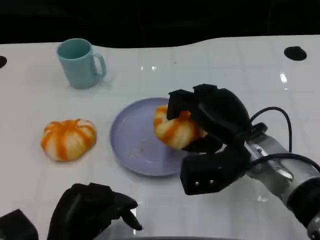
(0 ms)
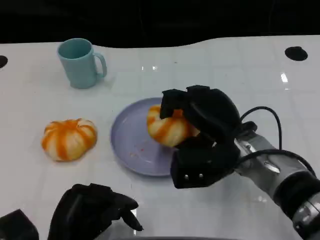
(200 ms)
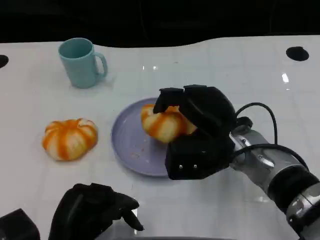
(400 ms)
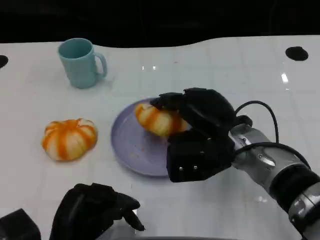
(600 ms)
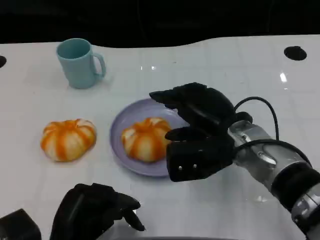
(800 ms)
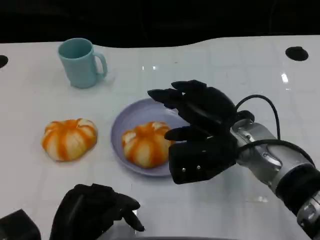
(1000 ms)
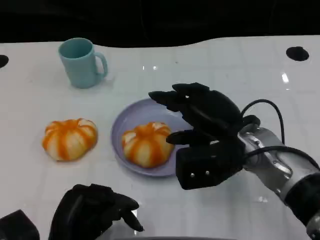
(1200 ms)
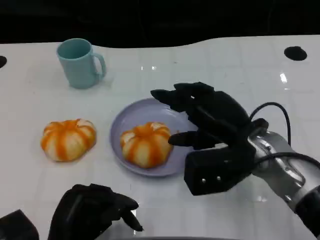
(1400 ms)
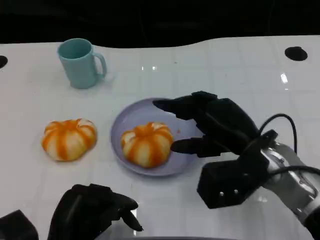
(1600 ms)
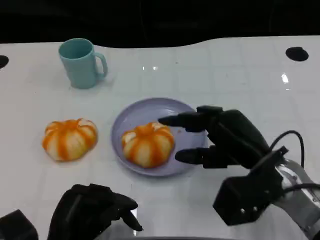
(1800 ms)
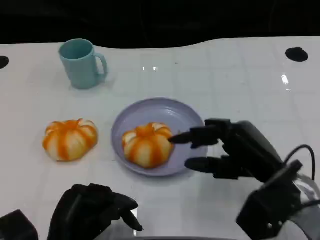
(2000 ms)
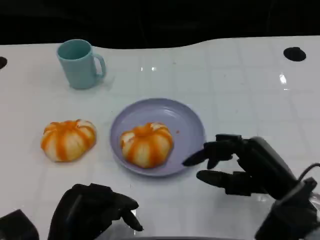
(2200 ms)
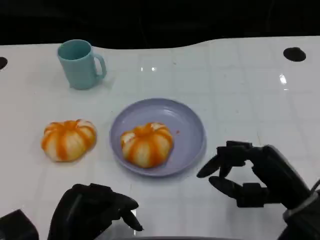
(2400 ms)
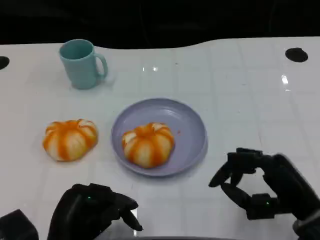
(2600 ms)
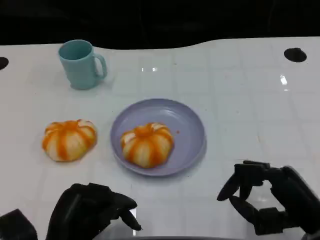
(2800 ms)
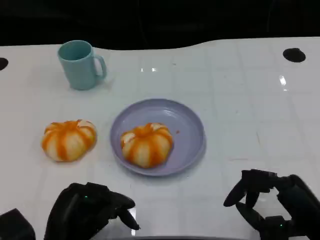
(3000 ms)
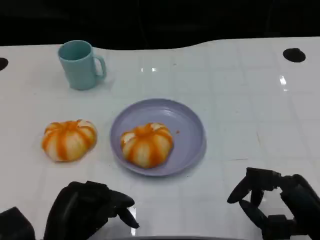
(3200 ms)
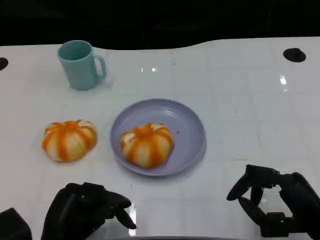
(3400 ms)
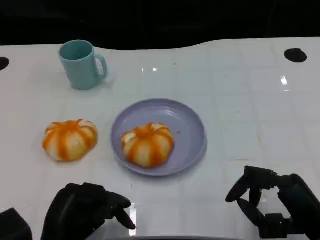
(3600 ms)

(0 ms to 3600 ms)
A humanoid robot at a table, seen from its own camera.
Task of the whole recording: Grasp the bread from the table and place it into the plate.
0 ms - 1800 ms: The right hand changes place by roughly 5 cm.
1800 ms - 3600 ms: The right hand moves backward and to the right, about 10 cm.

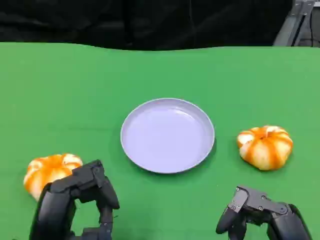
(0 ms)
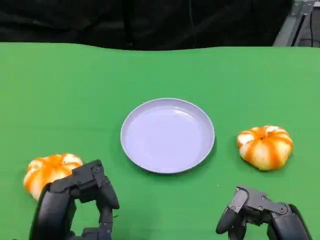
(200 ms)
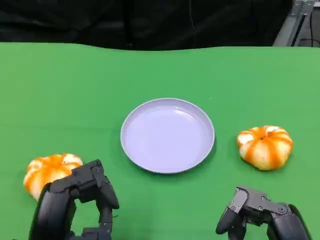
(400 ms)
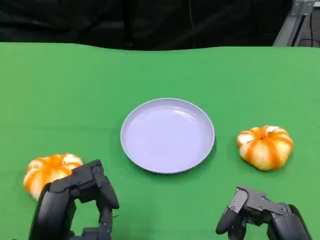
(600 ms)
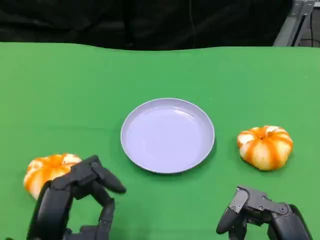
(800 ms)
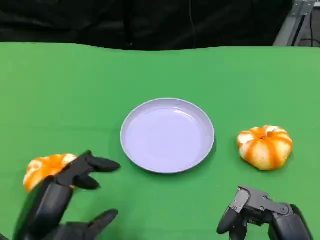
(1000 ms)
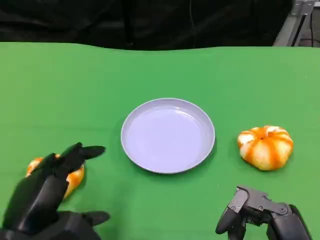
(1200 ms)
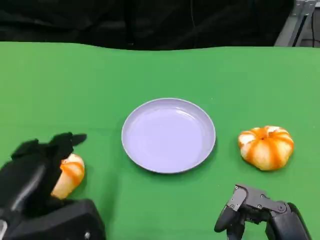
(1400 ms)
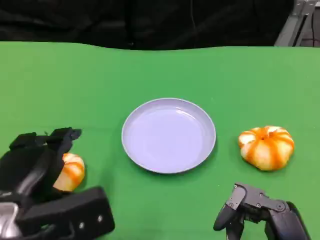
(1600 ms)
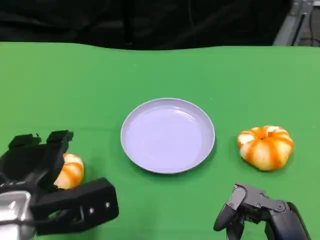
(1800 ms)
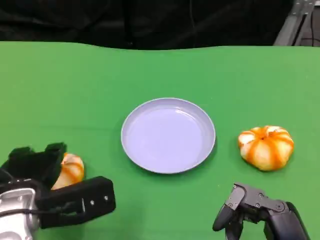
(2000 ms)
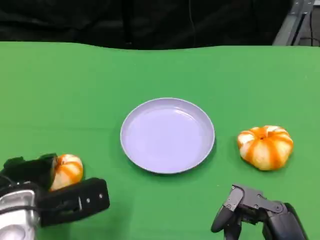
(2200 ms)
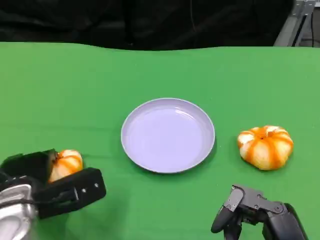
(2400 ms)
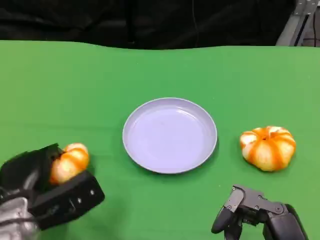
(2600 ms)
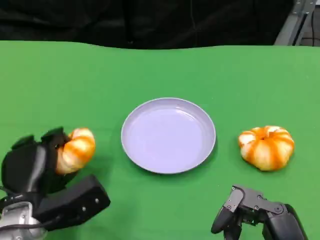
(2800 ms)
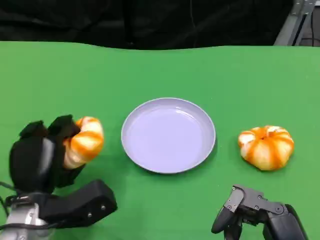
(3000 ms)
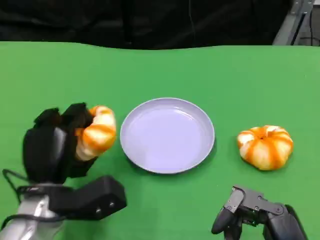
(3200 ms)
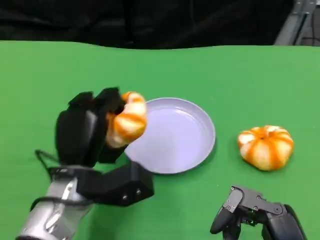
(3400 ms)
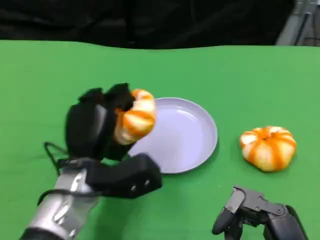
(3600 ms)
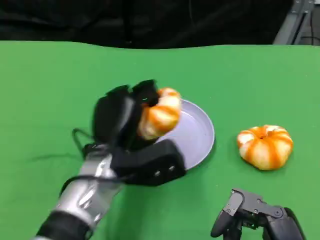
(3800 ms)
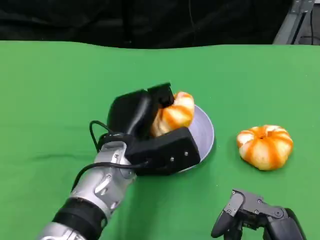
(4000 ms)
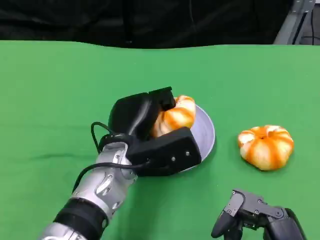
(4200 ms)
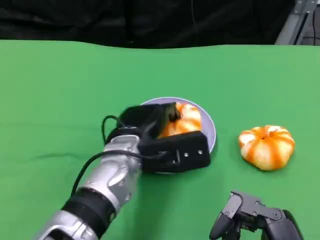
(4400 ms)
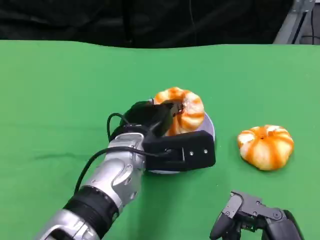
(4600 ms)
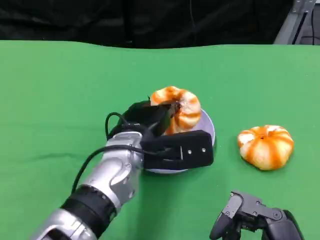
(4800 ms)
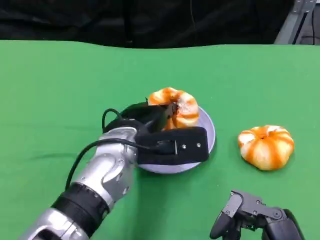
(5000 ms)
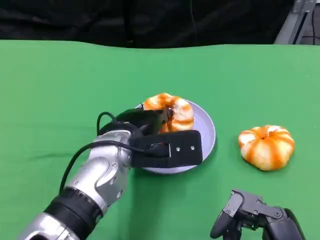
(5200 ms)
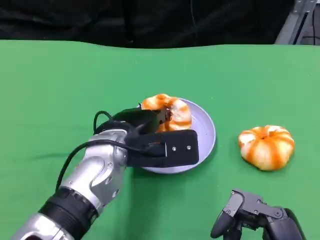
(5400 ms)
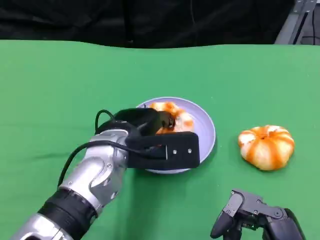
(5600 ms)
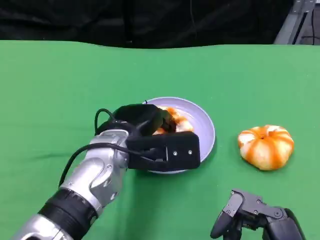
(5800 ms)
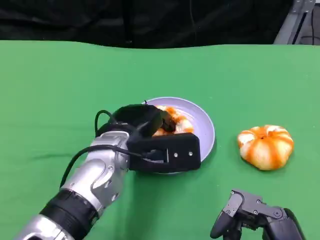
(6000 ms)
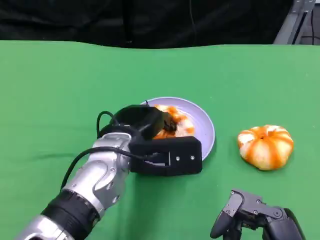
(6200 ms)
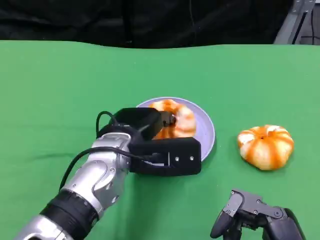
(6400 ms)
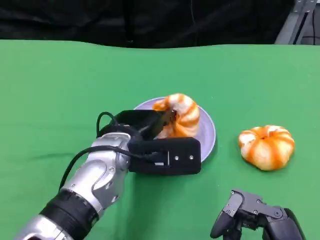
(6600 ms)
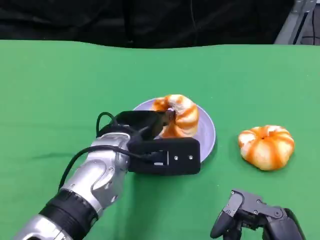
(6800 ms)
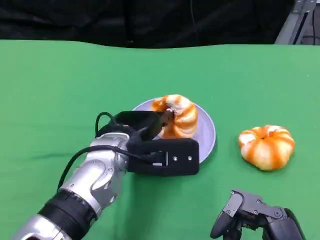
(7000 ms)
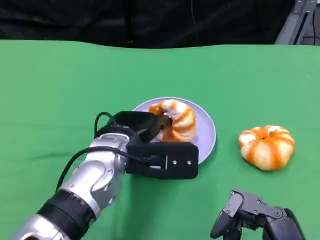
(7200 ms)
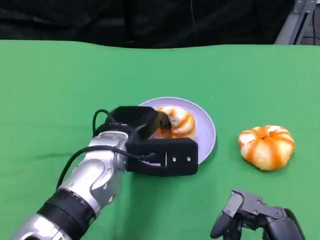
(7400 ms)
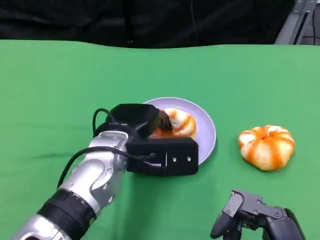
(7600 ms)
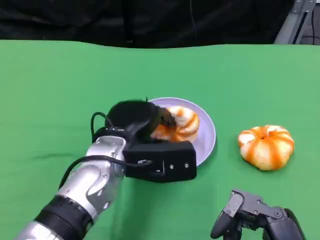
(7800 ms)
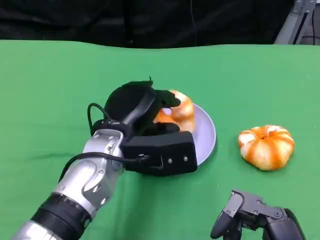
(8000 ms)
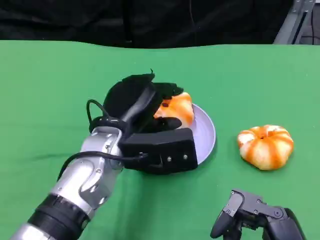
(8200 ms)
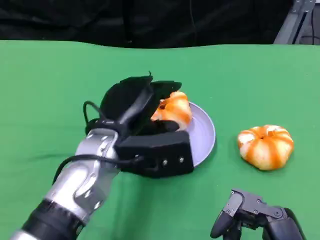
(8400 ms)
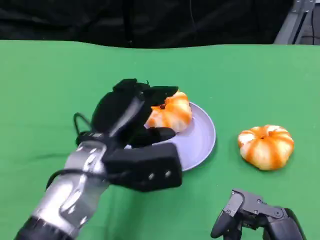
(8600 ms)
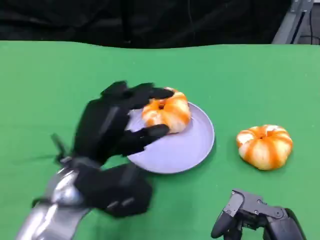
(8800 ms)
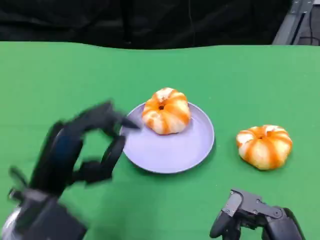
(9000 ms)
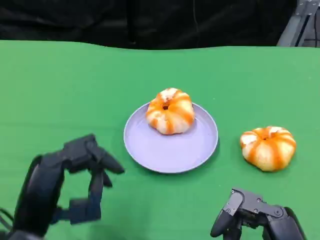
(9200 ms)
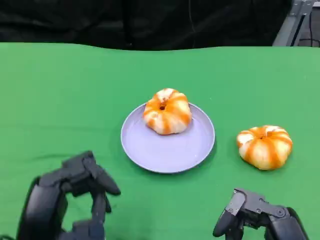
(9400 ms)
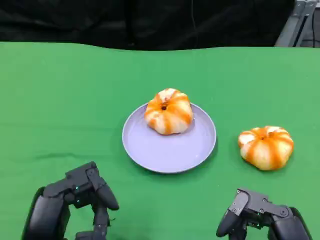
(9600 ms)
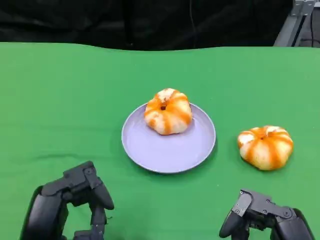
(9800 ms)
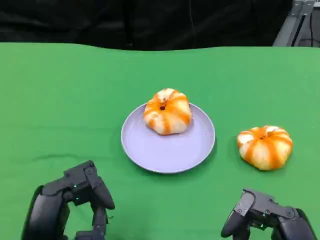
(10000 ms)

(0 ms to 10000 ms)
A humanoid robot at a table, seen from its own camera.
Task of the whole recording: Grasp the bread from the table and place it into the plate.
0 ms - 1400 ms: The left hand moves some 5 cm.
1400 ms - 2800 ms: The left hand is displaced downward and forward by approximately 10 cm.
2800 ms - 4200 ms: The left hand travels to the right, forward and upward by approximately 15 cm.
5800 ms - 7200 ms: There are only small adjustments of the hands.
8600 ms - 10000 ms: The left hand travels backward and to the left by roughly 15 cm.

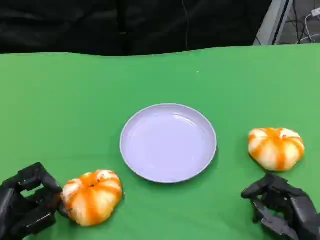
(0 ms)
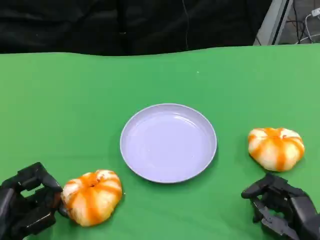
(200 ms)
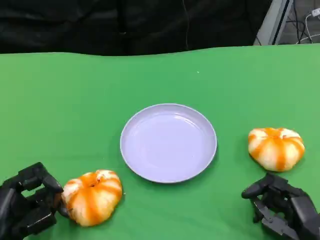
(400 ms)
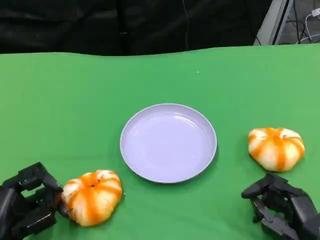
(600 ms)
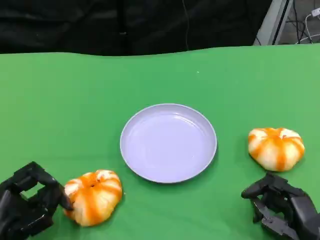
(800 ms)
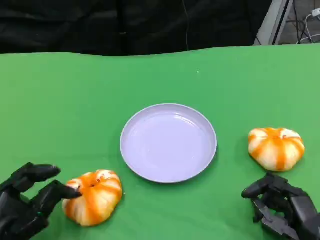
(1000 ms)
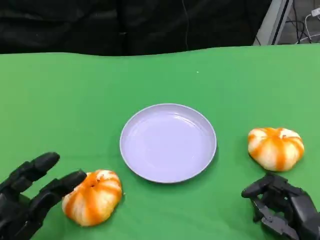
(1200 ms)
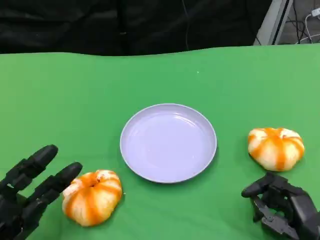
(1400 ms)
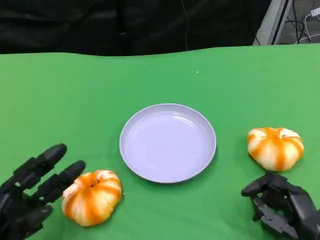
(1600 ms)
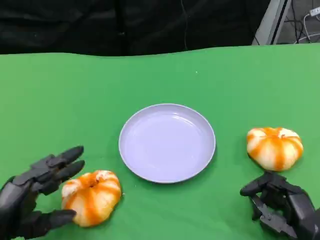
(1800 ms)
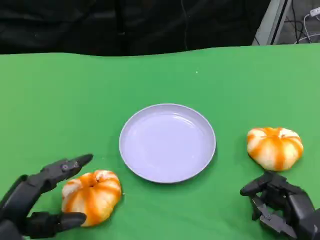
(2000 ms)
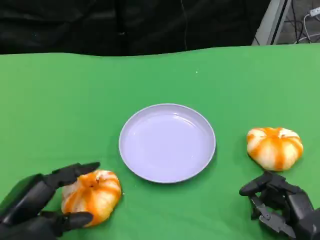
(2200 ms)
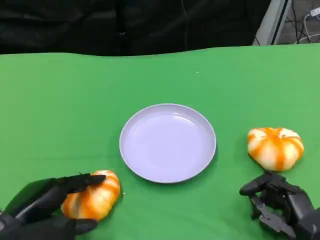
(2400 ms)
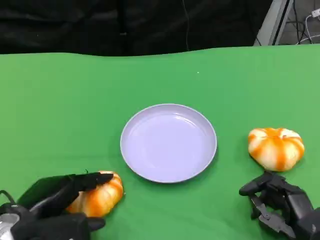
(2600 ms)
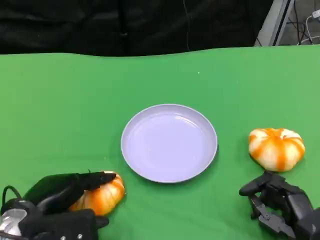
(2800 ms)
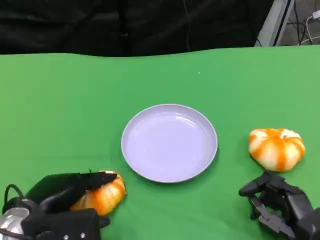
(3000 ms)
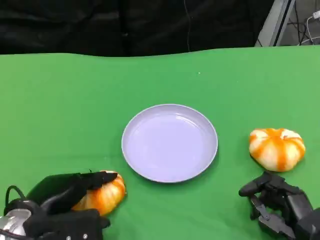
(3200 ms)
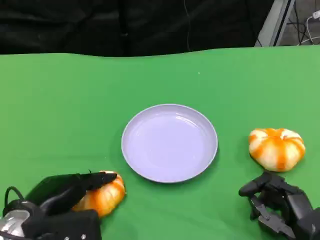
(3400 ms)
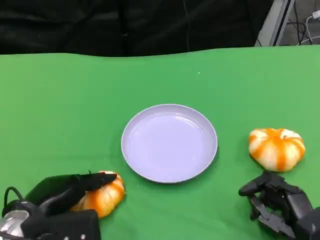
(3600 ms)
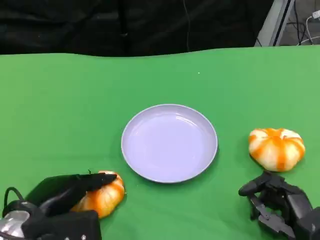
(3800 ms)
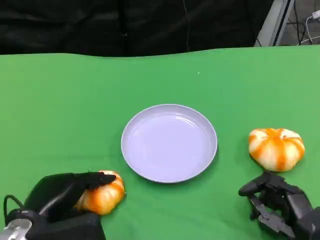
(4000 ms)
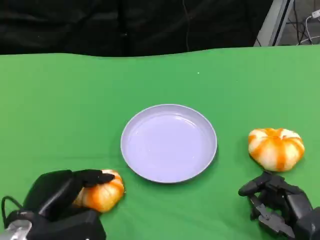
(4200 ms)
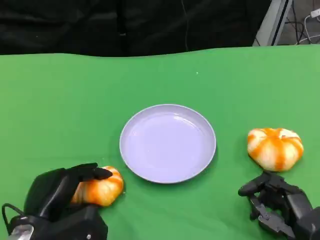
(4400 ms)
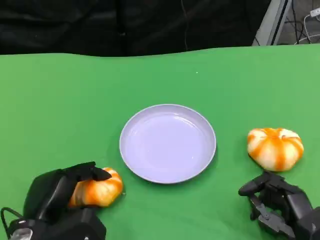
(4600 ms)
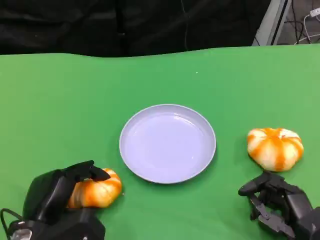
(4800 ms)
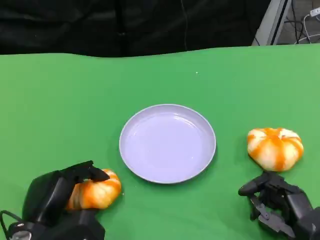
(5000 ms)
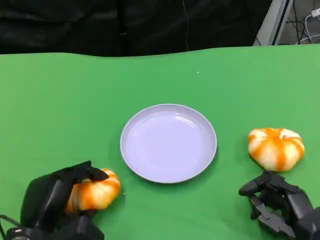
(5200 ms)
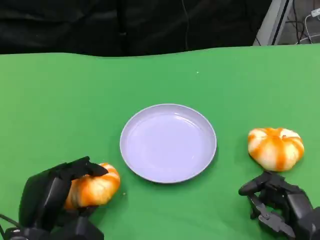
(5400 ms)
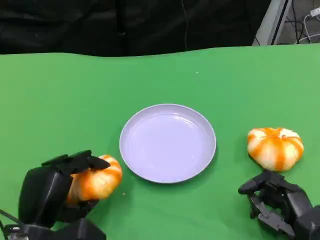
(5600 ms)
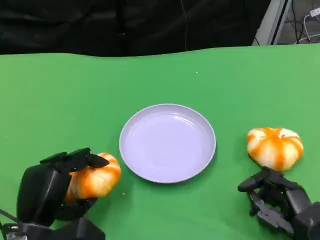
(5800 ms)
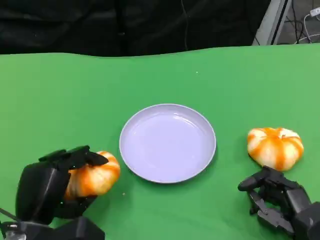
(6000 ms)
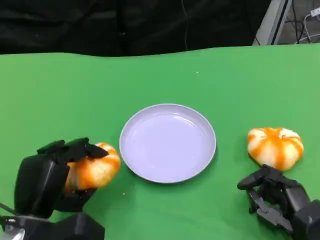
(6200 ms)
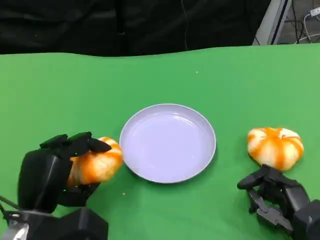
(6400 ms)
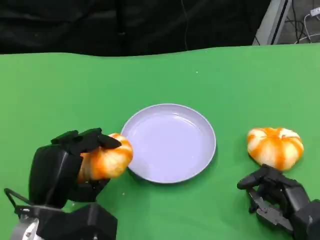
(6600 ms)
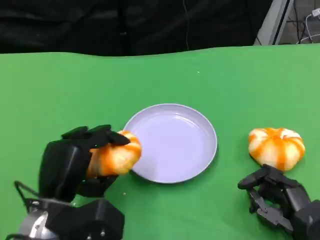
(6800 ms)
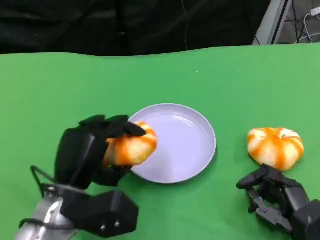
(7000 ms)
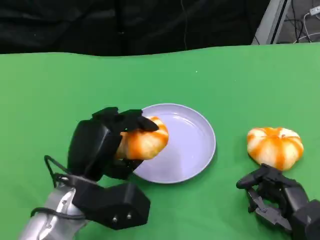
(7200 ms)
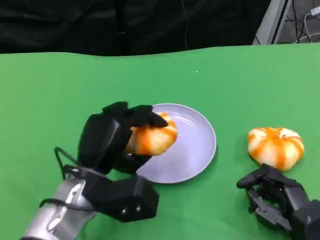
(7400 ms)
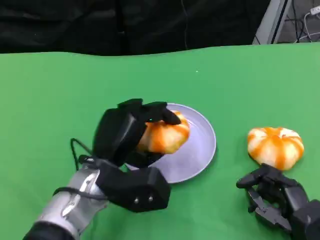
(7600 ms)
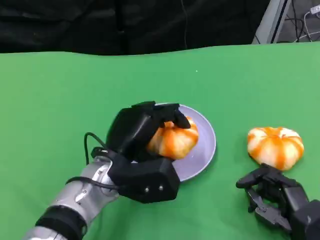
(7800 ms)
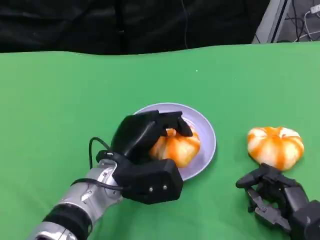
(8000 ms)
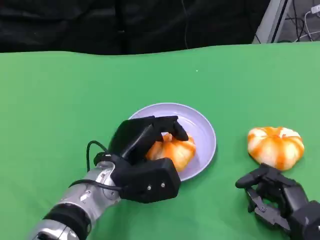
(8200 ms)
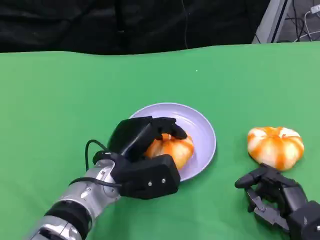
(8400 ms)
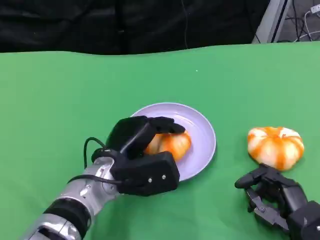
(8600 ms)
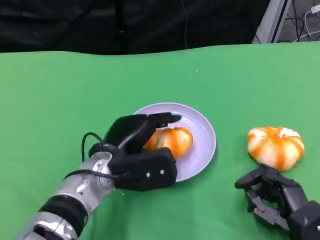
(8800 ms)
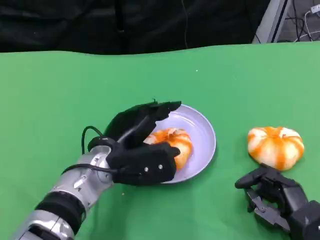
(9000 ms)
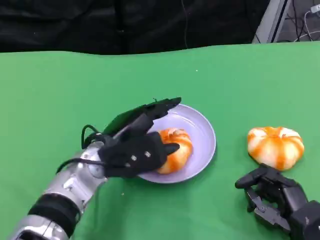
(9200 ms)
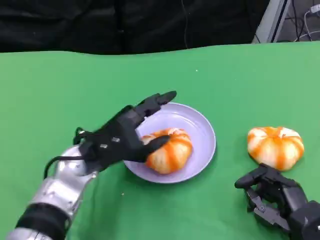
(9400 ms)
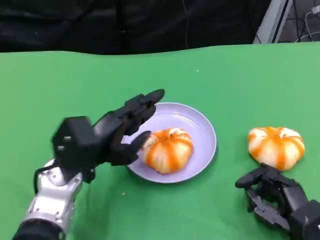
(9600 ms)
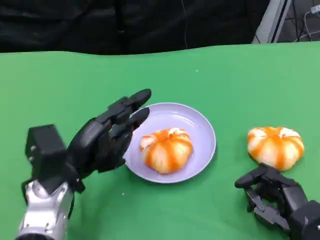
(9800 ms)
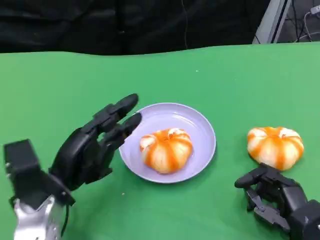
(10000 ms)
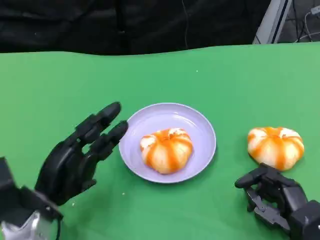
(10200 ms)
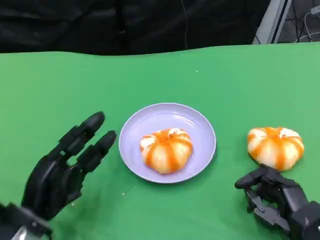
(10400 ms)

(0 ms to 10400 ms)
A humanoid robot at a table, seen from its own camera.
Task of the whole recording: Grasp the bread from the table and place it into the plate.
1400 ms - 3000 ms: The left hand shifts some 5 cm to the right and upward.
4400 ms - 6000 ms: The hands make only small movements.
6000 ms - 7400 ms: The left hand travels to the right and forward by approximately 10 cm.
9000 ms - 10400 ms: The left hand shifts about 15 cm to the left, backward and downward.
